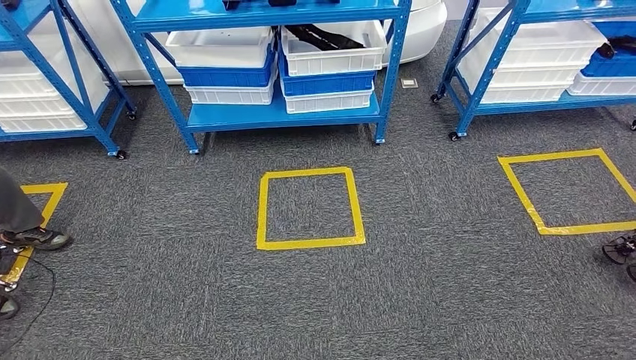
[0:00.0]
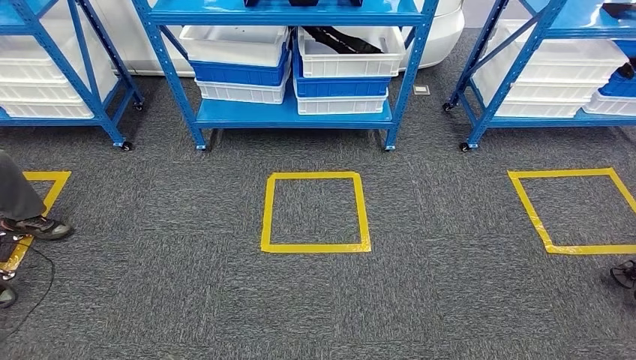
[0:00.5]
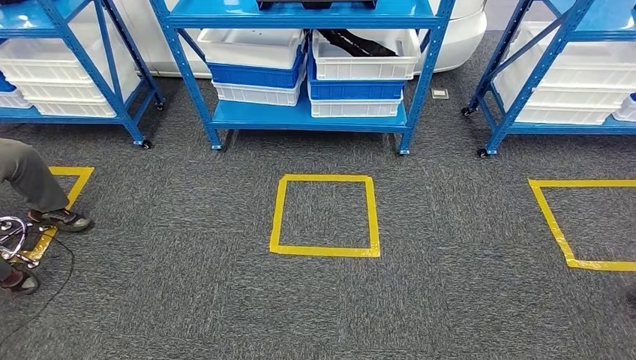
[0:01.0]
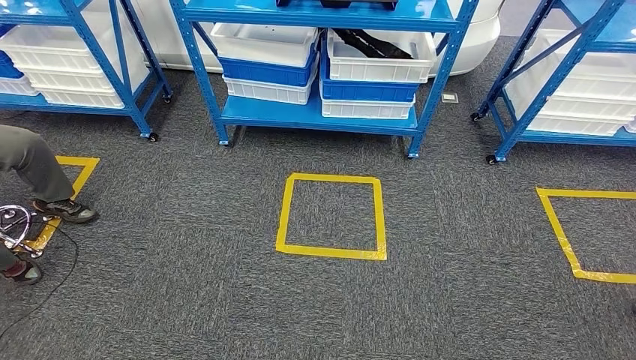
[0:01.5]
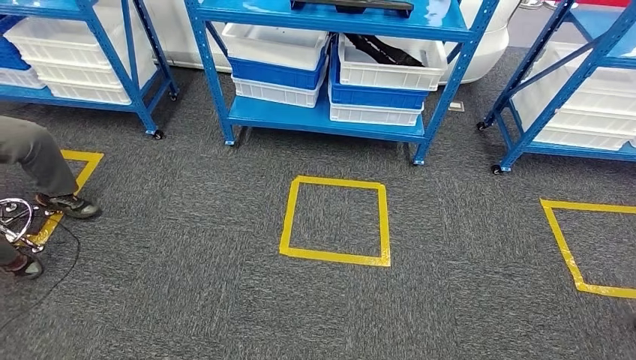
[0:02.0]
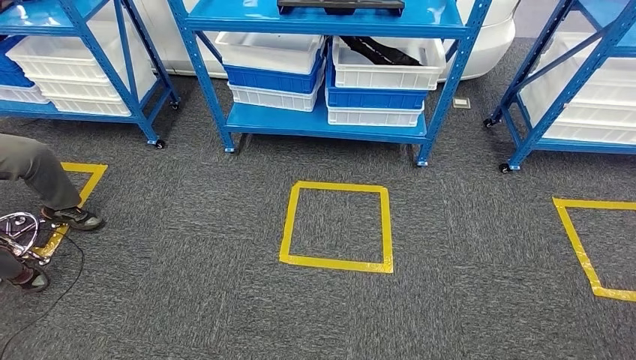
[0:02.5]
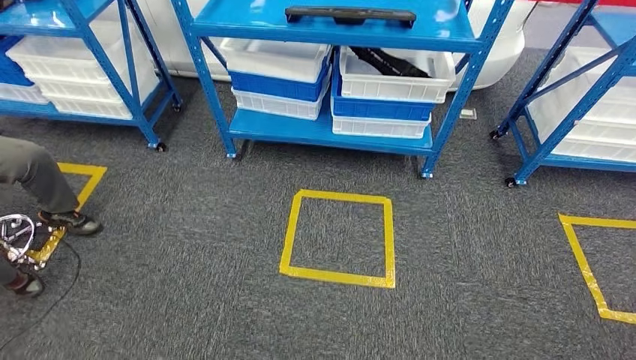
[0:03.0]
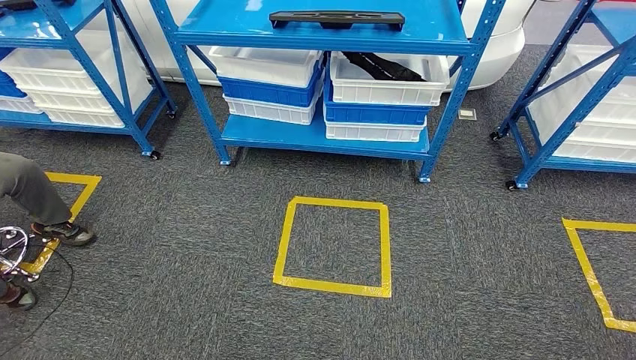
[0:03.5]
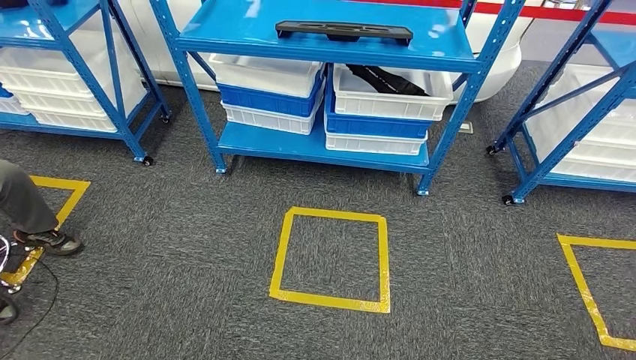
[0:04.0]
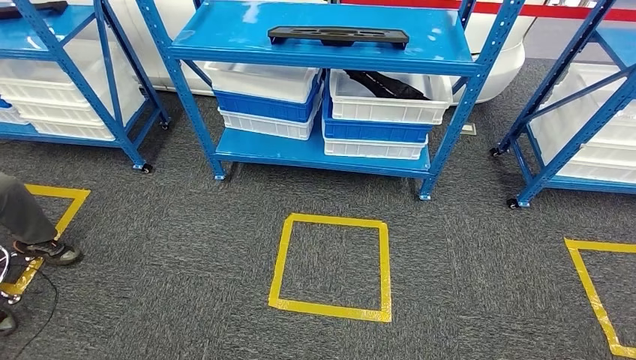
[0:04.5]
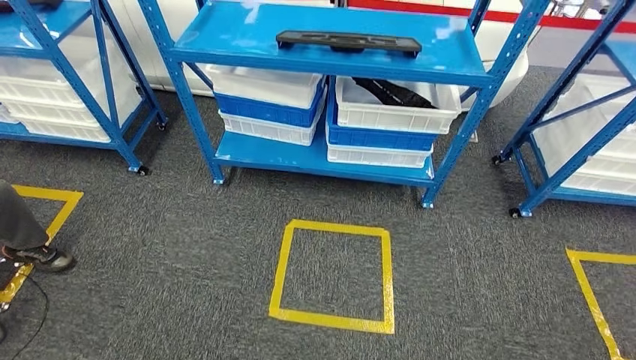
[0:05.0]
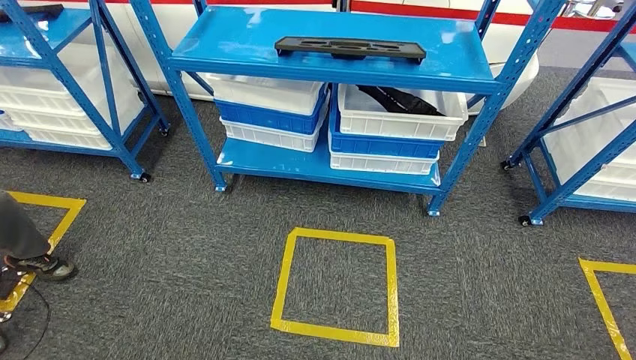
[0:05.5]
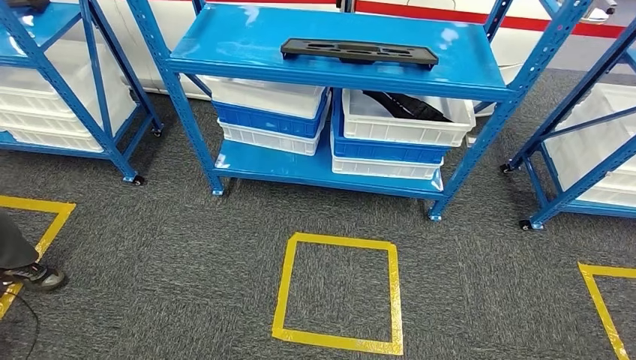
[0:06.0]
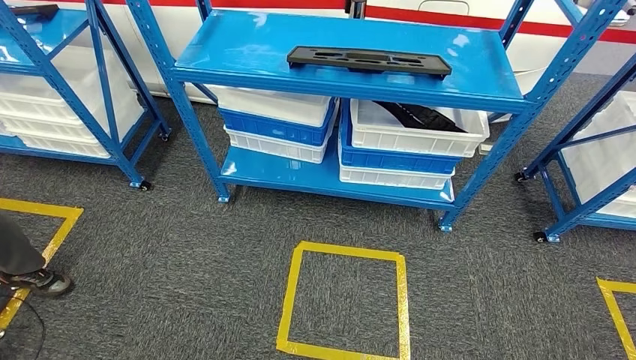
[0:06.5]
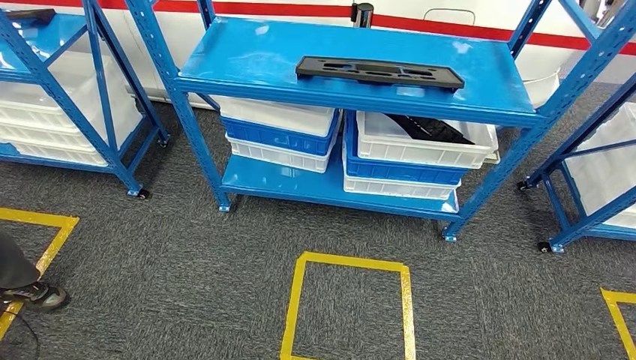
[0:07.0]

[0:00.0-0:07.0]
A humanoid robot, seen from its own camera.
Step, 0:00.0 to 0:07.0: Move to the initial position of the shelf.
